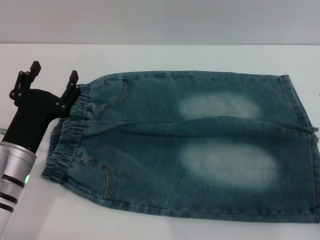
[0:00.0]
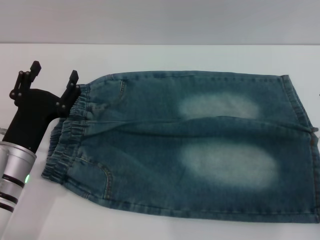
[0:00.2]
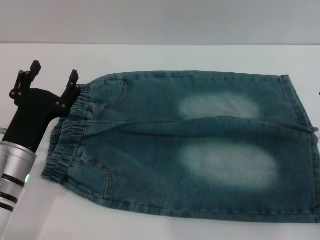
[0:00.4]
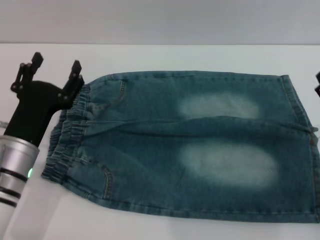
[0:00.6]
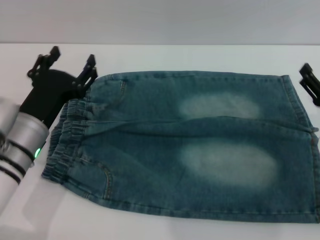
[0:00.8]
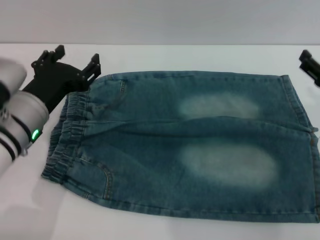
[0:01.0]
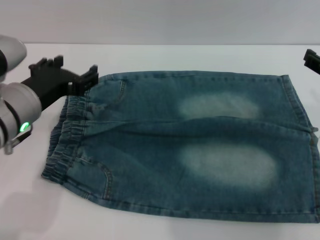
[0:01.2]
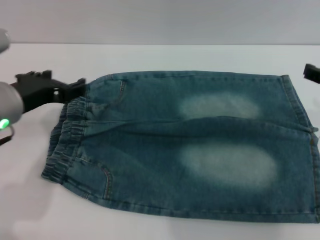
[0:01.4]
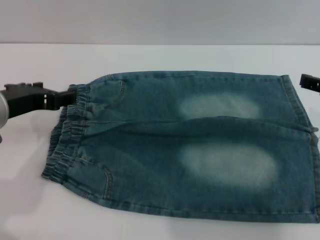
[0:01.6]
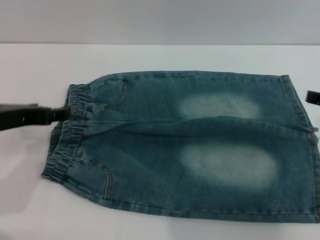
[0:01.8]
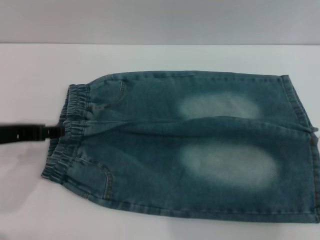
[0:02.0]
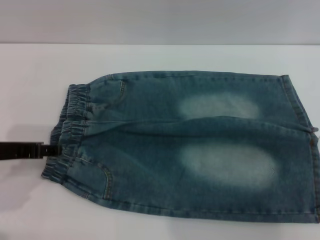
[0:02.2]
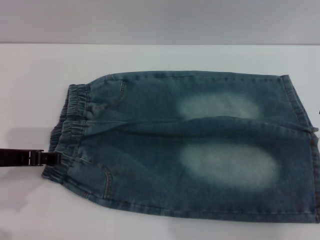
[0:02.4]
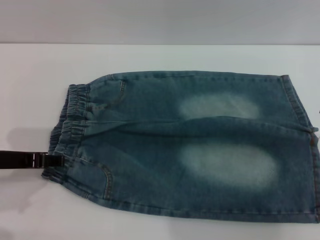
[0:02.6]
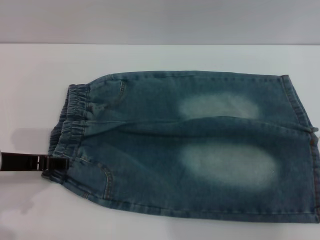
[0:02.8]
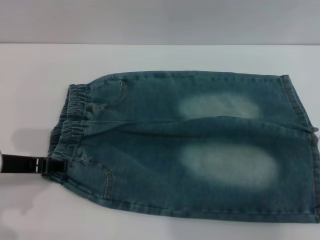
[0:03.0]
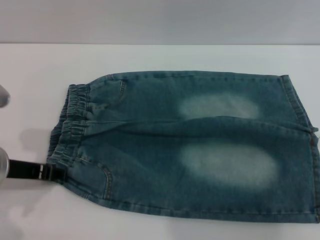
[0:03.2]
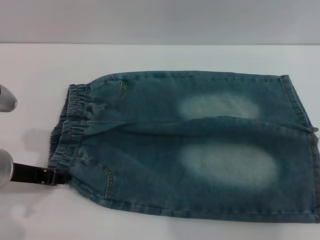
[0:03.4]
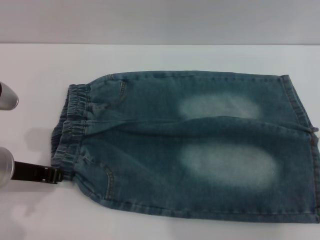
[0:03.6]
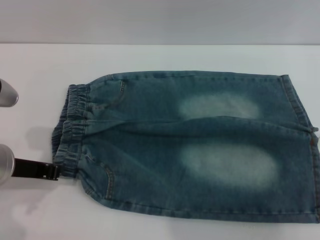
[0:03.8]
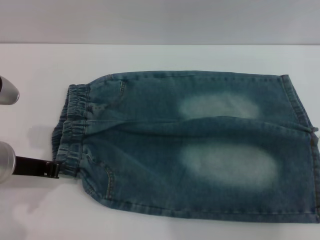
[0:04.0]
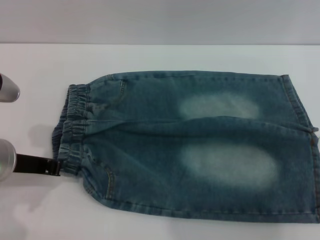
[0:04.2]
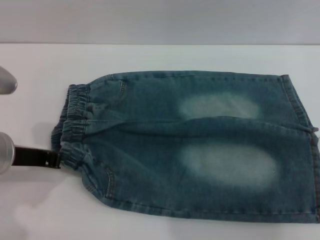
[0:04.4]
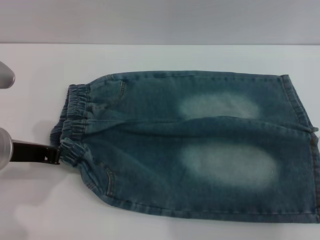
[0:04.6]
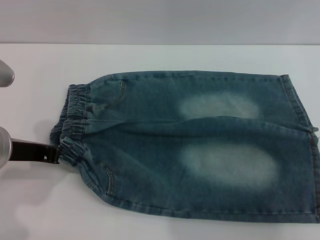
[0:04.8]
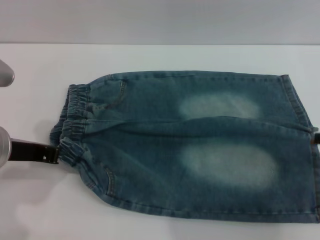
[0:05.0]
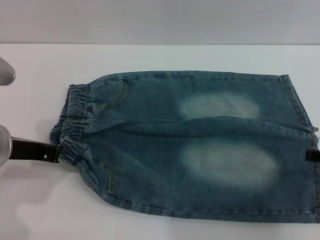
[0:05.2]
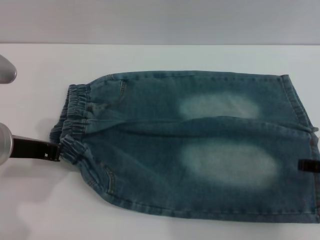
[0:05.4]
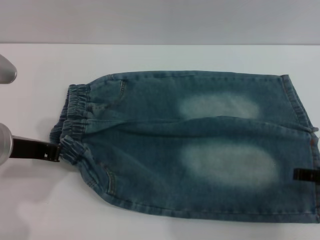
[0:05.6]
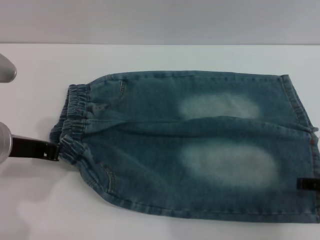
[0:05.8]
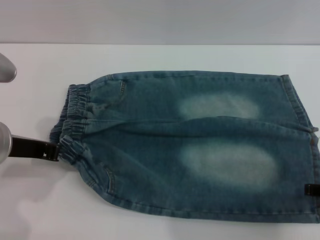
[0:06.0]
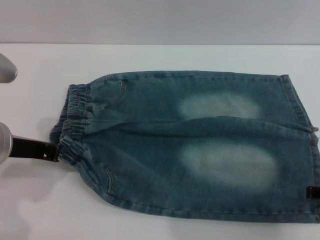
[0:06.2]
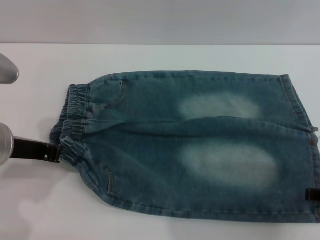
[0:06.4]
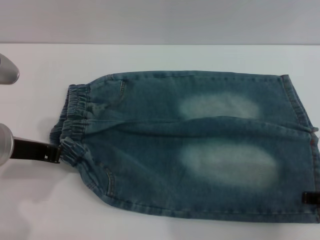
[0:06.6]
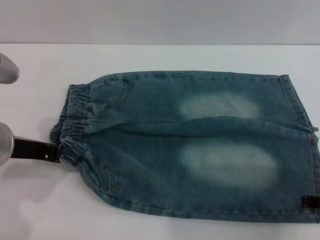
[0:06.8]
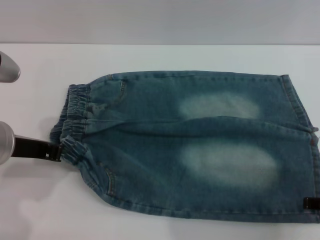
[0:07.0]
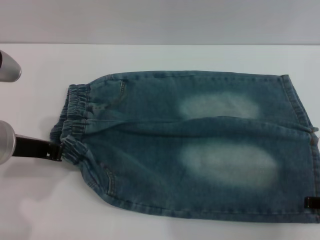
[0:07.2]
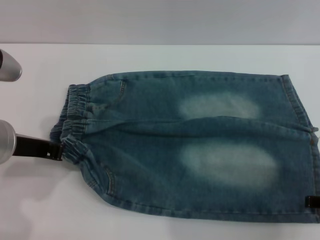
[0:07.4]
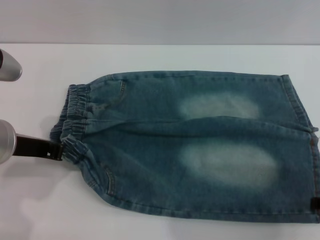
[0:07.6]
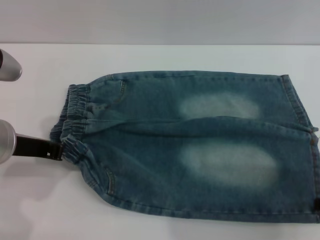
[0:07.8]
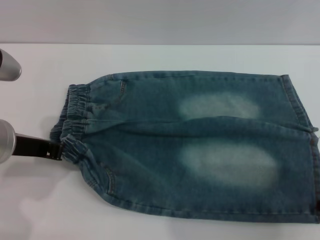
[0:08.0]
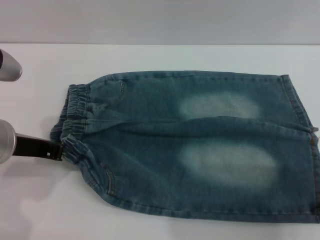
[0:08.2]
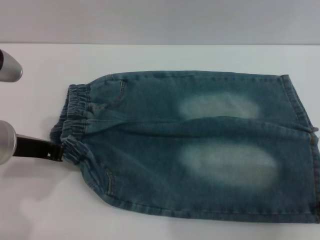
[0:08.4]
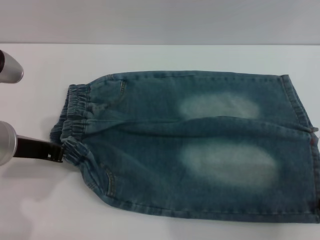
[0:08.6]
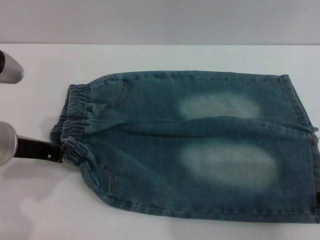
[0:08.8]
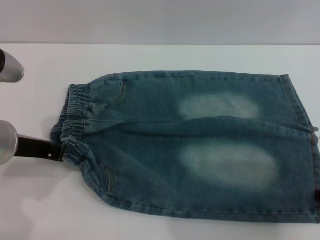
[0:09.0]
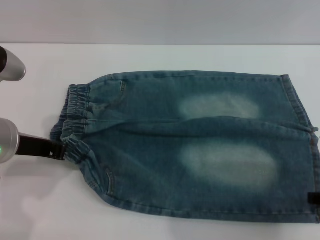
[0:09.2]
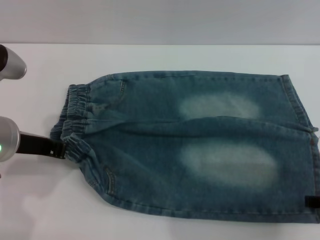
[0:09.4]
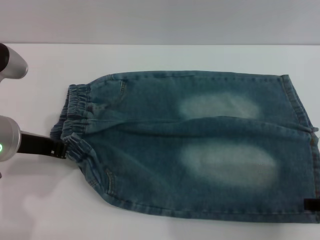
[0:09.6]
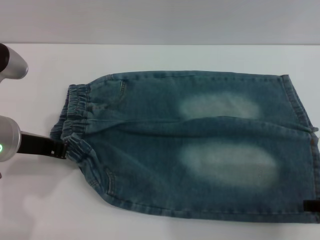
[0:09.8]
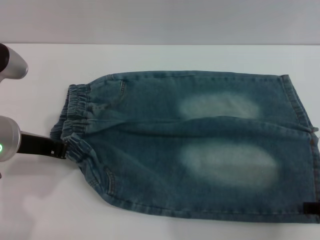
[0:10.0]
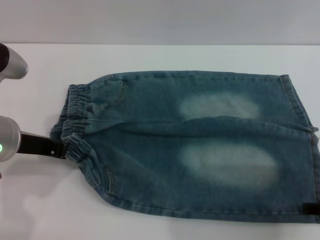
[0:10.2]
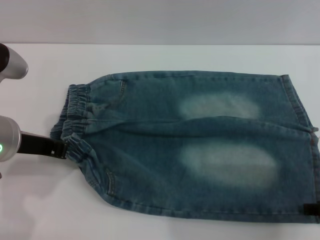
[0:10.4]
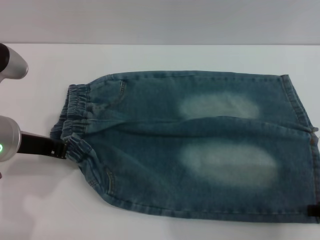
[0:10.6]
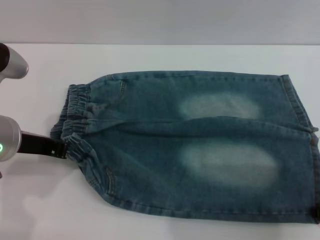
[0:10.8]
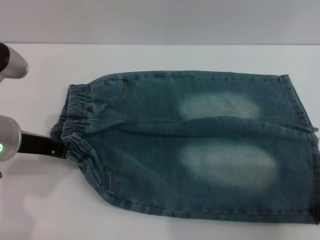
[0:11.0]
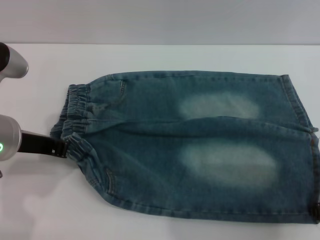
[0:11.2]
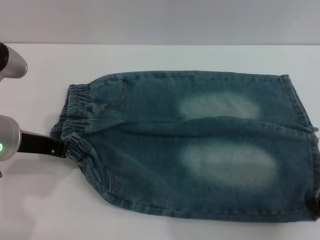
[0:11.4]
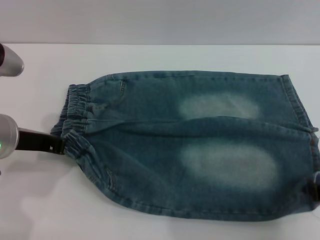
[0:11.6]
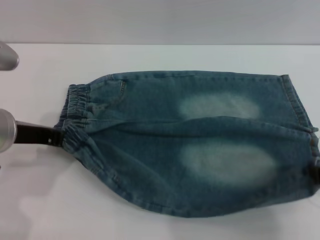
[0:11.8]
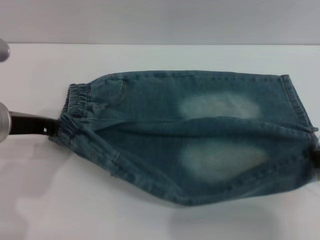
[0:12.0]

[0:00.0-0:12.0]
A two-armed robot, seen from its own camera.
0:00.0 to 0:01.6: The left gripper moves upward, some 15 cm.
0:03.0 to 0:04.4: The left gripper closes.
0:06.0 to 0:07.6: There are only small adjustments of the grippers.
0:10.4 to 0:12.0: The right gripper closes up.

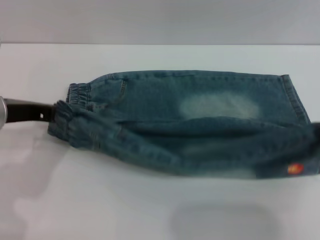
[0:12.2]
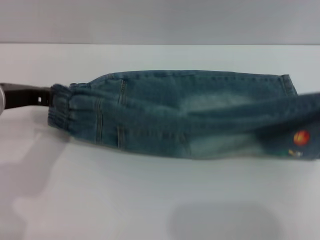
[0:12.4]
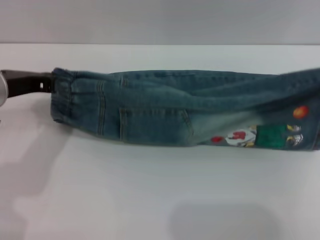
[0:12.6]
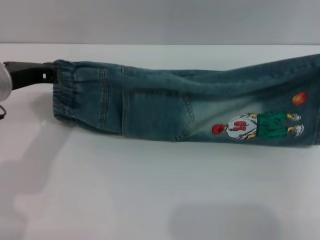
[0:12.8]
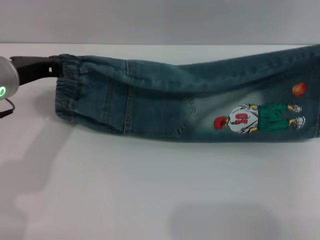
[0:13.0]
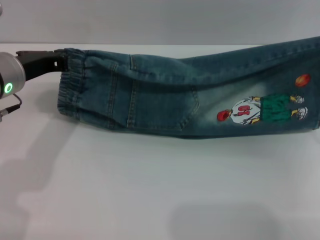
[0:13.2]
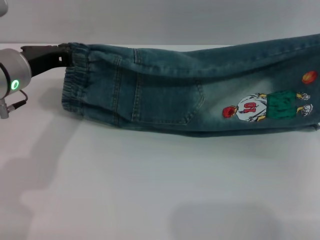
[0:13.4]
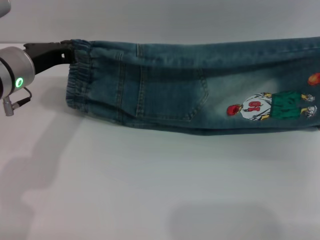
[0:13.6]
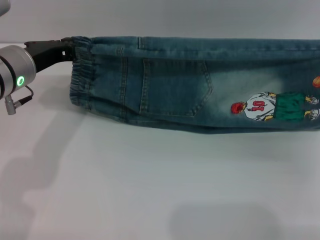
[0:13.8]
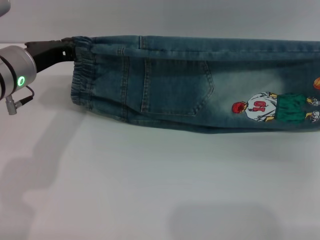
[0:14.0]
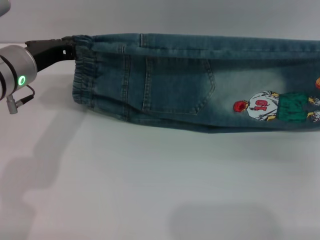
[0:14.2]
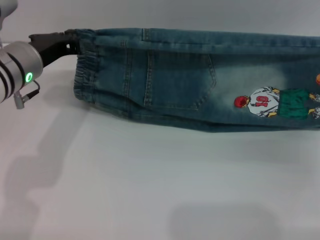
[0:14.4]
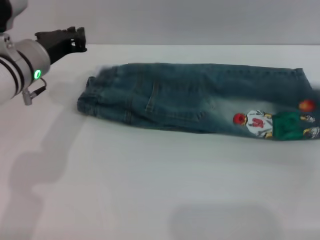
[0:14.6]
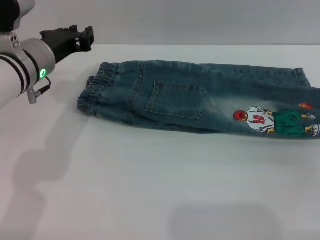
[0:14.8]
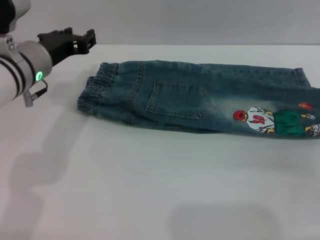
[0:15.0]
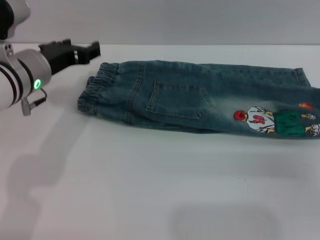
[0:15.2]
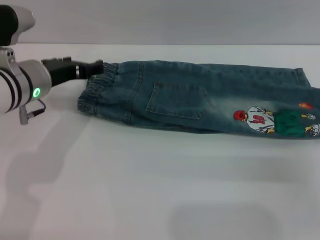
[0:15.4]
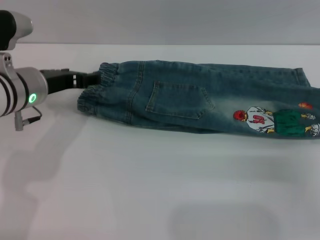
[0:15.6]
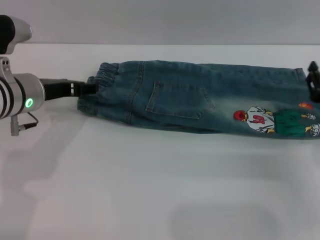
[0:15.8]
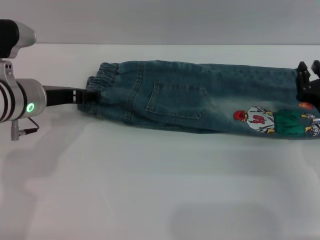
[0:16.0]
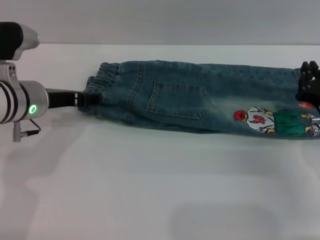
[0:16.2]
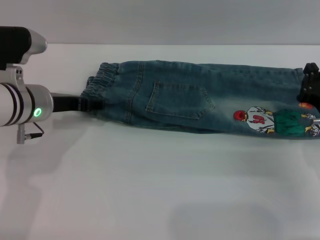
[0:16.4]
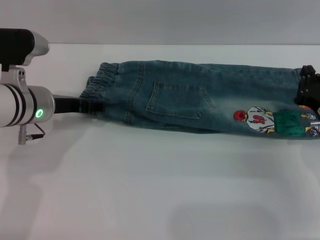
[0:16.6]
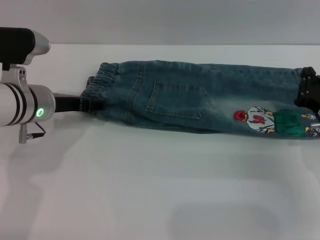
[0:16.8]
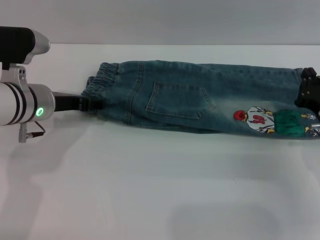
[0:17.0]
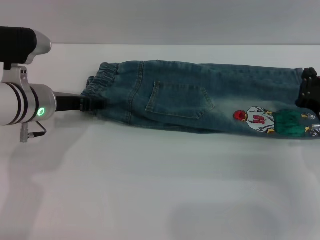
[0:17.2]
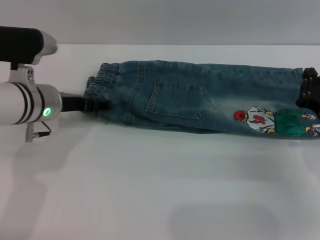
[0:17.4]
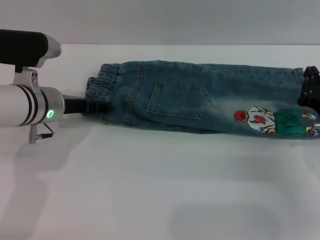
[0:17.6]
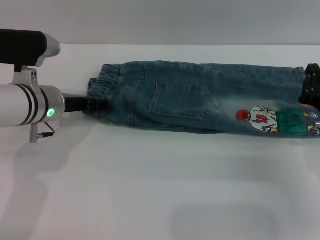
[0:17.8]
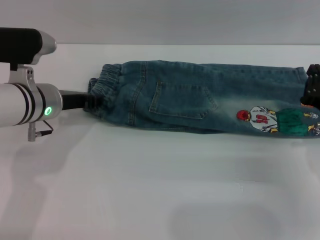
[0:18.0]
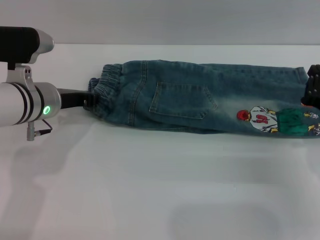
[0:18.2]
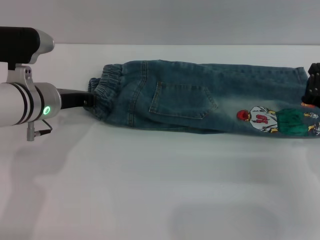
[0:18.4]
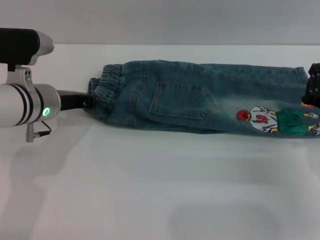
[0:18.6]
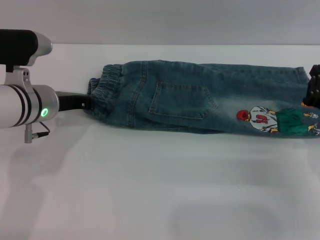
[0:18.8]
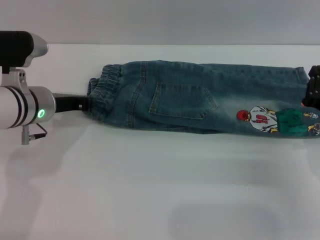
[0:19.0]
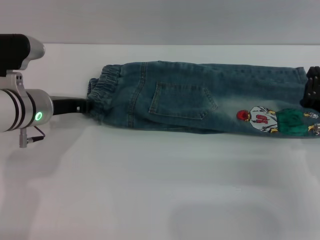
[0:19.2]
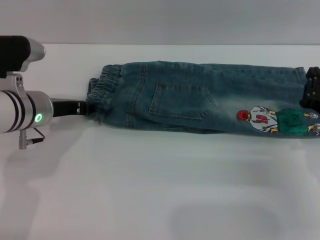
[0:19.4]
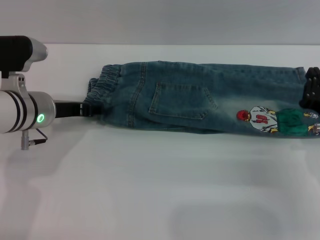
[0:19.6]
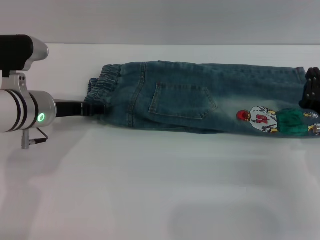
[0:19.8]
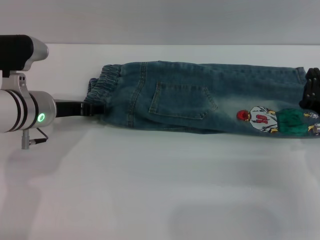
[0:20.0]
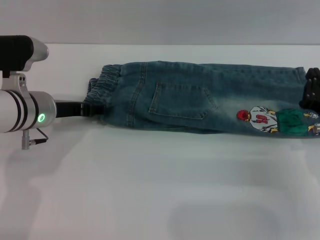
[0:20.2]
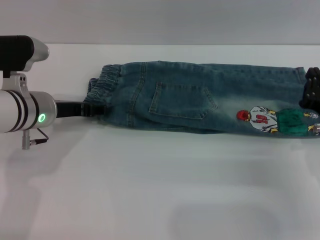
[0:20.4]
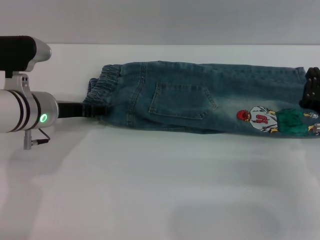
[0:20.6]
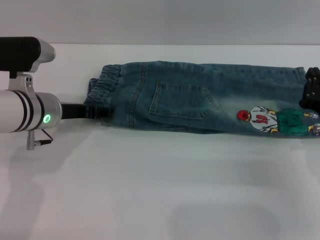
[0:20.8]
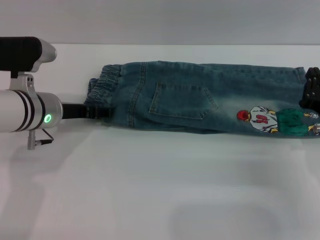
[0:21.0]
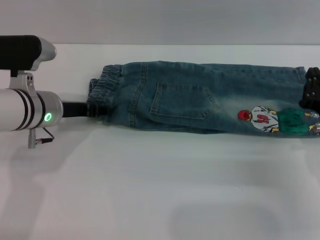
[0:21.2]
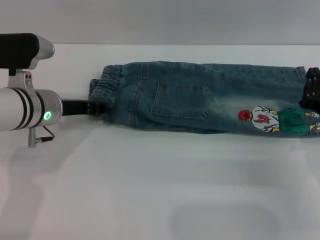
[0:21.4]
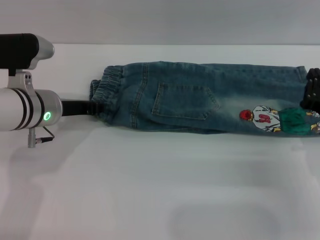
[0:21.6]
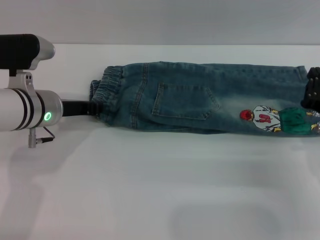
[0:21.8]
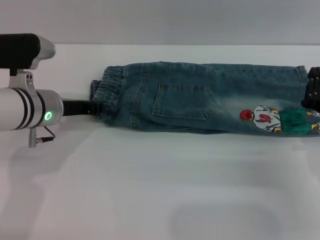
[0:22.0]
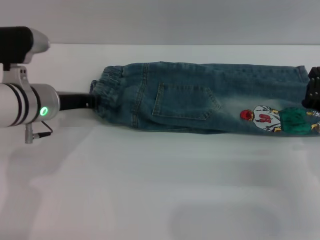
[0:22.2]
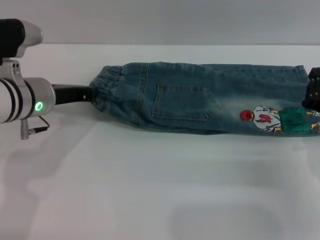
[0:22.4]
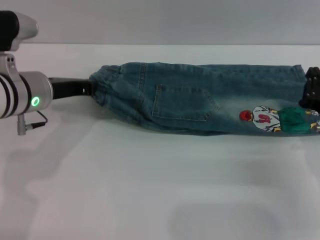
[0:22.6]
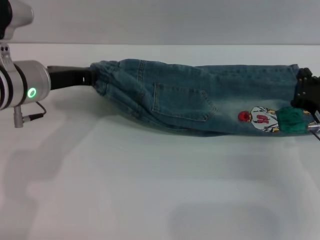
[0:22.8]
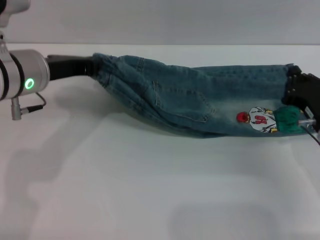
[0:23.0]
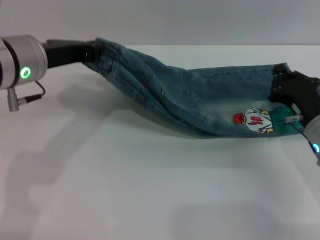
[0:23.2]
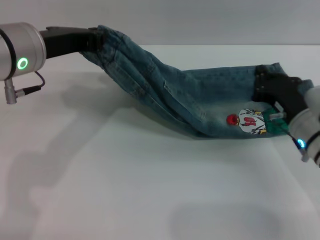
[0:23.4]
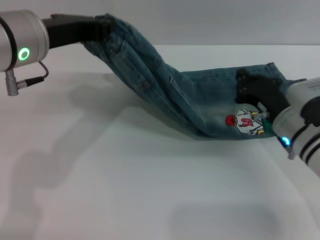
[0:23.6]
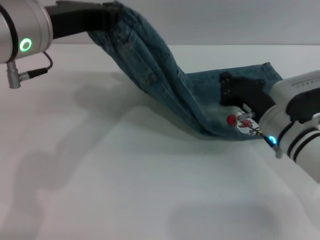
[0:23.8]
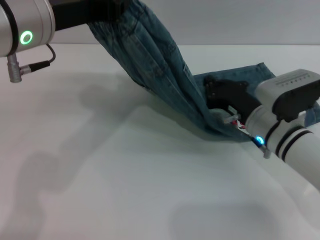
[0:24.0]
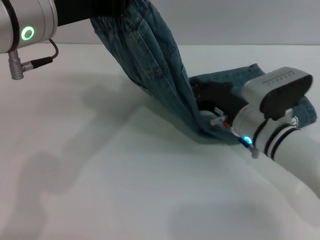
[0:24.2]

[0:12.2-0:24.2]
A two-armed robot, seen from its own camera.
Step, 0:12.2 to 0:14.6: Fold the bottom of the pants upward with both grippers.
0:12.2 to 0:13.8: The grippers both shift forward by approximately 5 cm.
0:13.8 to 0:15.2: The left gripper opens its fingers. The right gripper opens.
0:15.2 to 0:16.6: The right gripper ends up some 5 cm from where it was, and closes.
0:16.6 to 0:18.2: The left gripper closes up.
0:18.2 to 0:19.8: The left gripper opens up.
0:19.8 to 0:21.2: Neither gripper changes place.
0:21.2 to 0:22.6: The left gripper closes.
0:22.6 to 0:24.2: The right gripper travels to the left and forward by approximately 15 cm, while the left gripper heads upward, covering some 15 cm.
